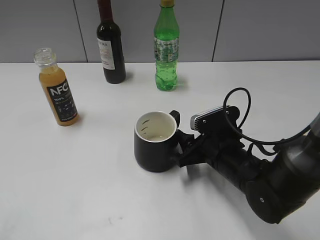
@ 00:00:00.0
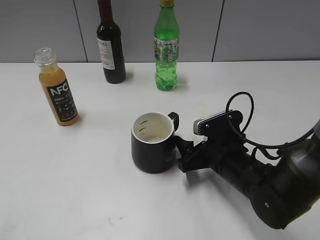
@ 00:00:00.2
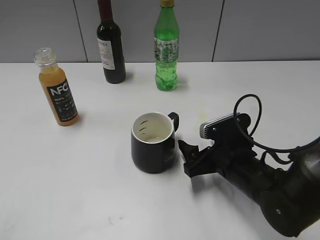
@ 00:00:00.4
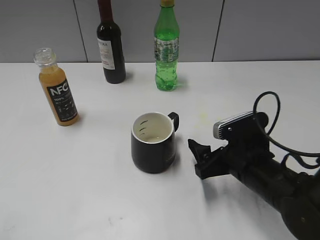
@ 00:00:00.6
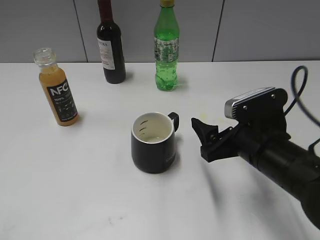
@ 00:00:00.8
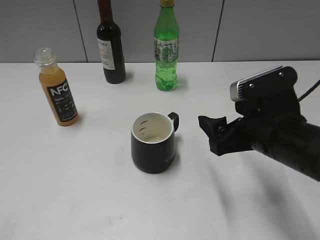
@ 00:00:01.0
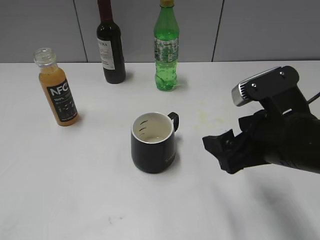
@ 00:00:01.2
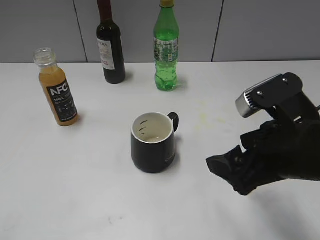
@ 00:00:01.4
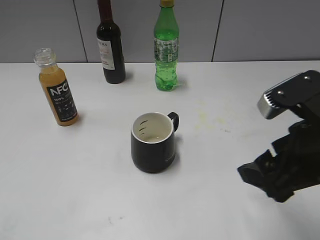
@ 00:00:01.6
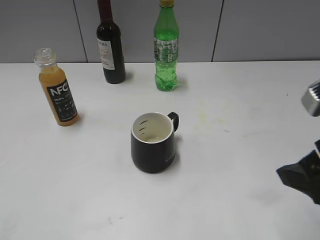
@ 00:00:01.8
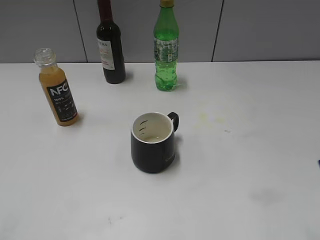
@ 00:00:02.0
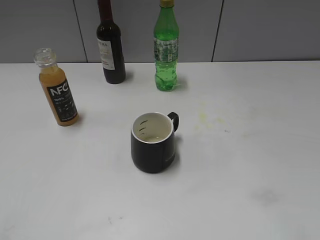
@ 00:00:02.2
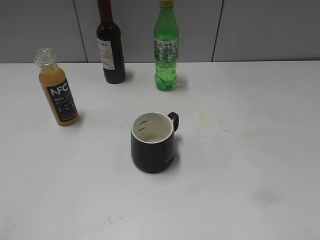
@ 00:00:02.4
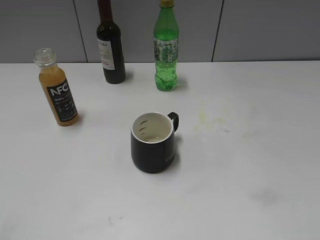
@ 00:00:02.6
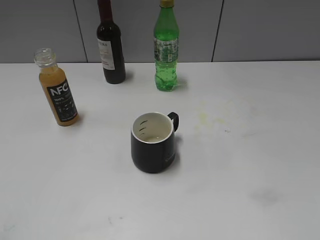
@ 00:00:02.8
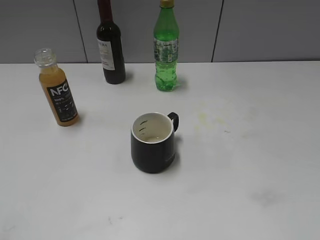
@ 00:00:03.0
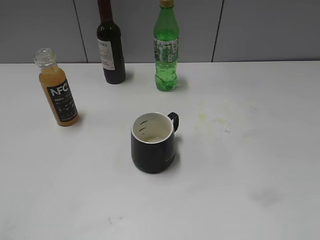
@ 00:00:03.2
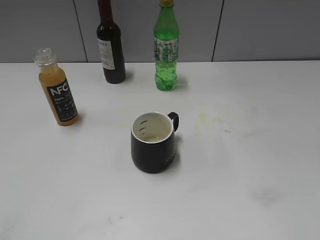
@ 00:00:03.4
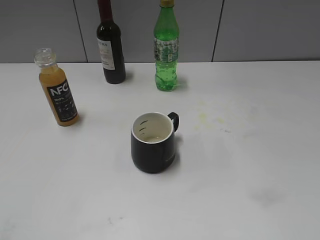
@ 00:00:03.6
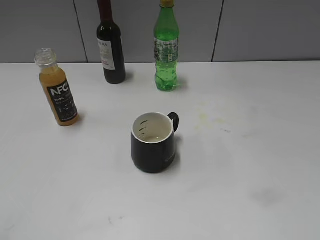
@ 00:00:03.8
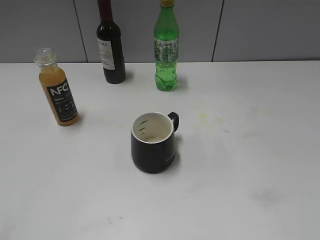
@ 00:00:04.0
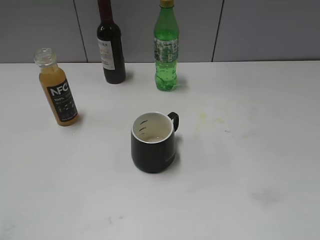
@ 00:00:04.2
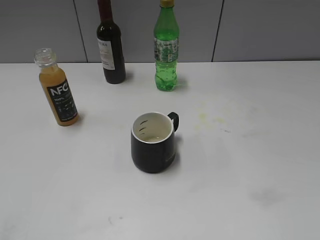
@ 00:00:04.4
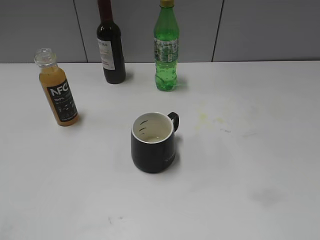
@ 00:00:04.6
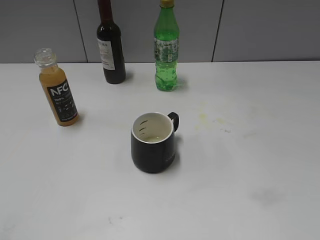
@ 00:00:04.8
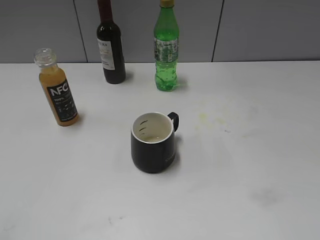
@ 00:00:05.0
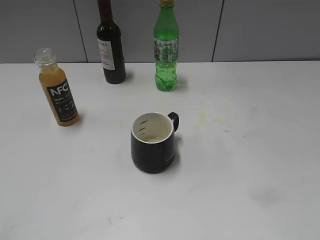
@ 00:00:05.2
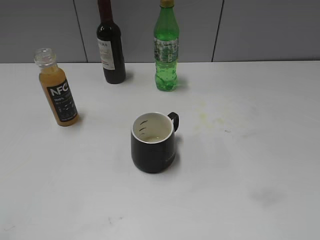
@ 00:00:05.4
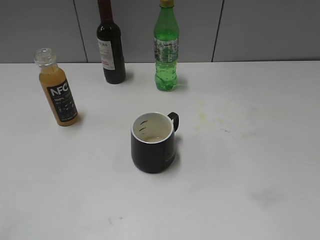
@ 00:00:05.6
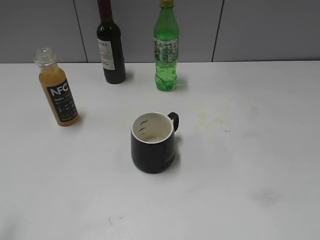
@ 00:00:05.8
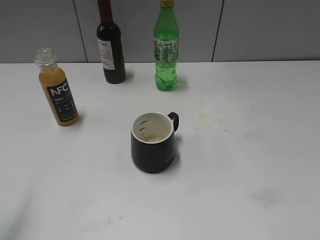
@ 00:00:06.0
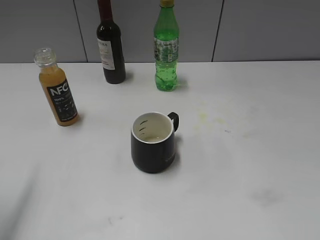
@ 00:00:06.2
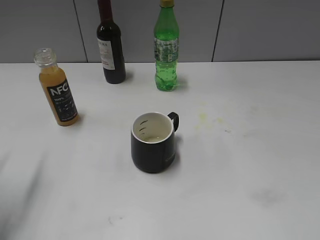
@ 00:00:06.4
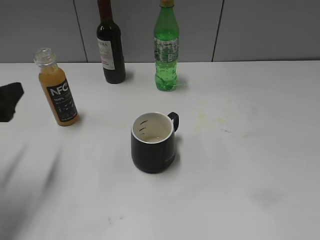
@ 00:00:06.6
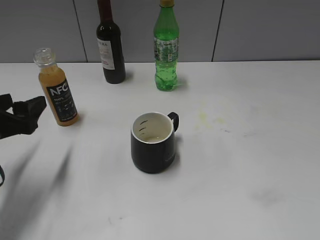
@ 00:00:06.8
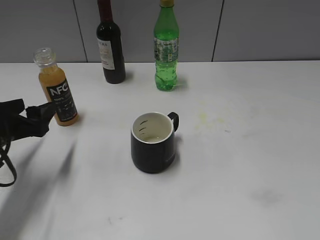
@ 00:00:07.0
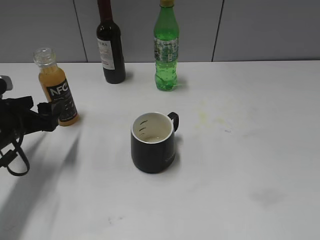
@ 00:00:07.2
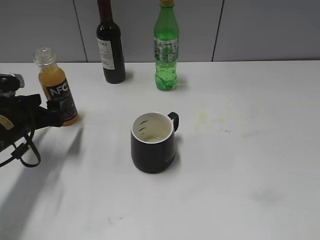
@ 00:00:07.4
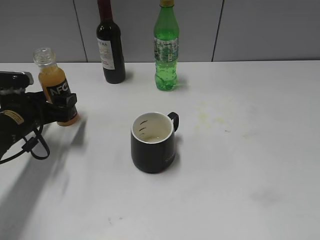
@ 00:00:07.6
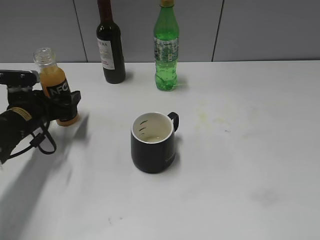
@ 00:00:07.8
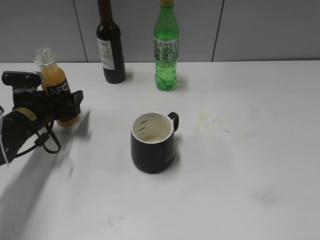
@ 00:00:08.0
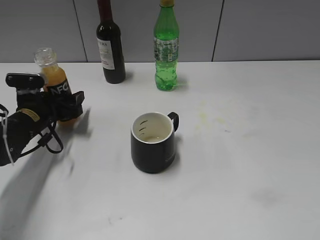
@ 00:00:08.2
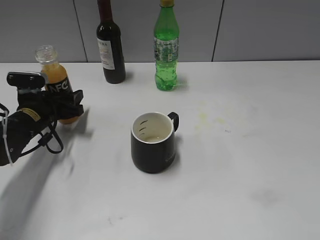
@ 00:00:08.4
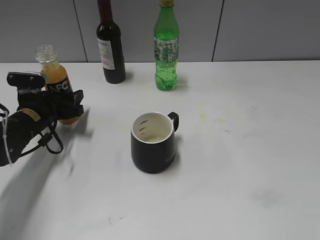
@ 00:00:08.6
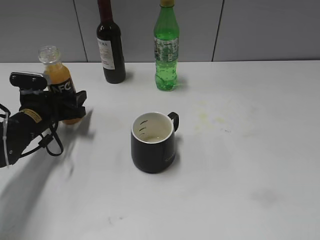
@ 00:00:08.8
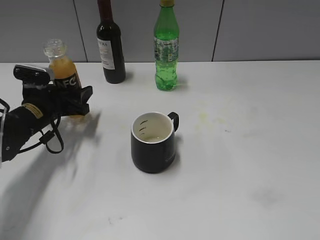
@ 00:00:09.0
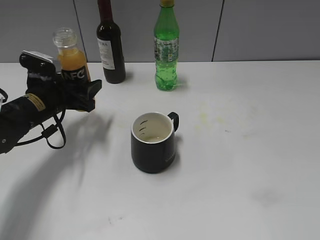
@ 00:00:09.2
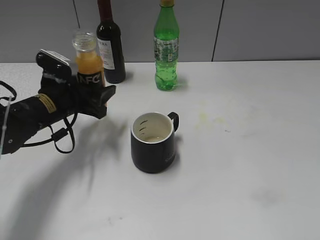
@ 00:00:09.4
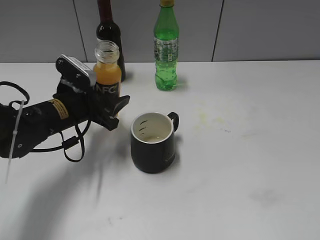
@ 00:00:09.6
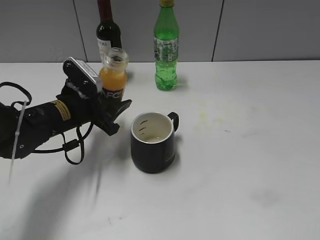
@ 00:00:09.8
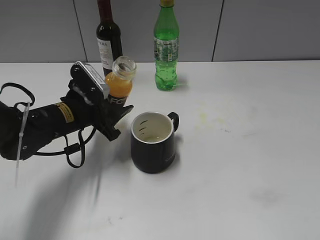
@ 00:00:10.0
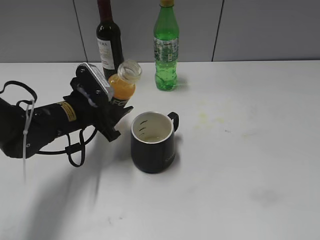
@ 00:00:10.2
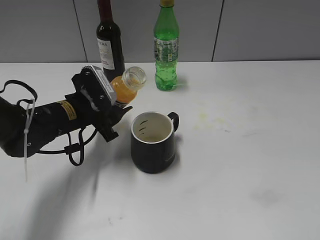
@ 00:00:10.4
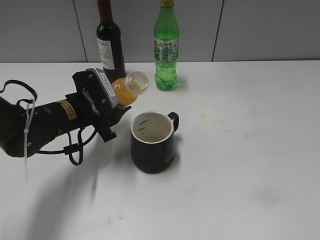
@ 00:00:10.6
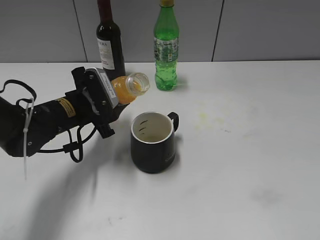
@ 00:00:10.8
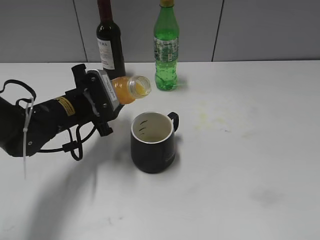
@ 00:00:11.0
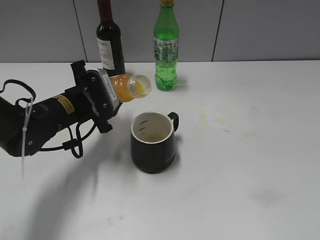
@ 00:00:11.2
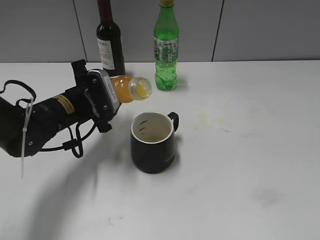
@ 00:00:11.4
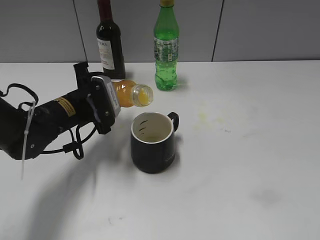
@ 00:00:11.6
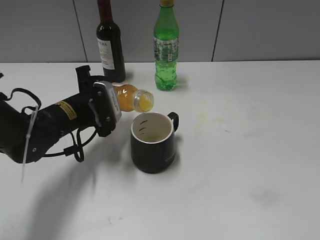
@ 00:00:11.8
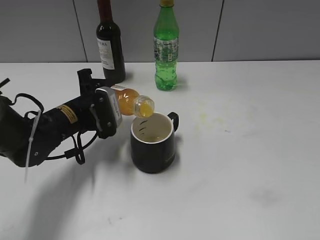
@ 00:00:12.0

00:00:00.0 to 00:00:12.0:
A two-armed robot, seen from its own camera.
Step, 00:00:00.0 to 00:00:08.8: Grasp the bottle with orange juice with left gripper.
00:00:00.0 to 00:00:01.6: The right gripper goes approximately 20 cm upward and backward, and opens up.
00:00:01.6 to 00:00:03.0: The right gripper moves backward and to the right, roughly 20 cm.
00:00:03.0 to 00:00:04.4: Neither gripper changes place.
00:00:06.0 to 00:00:07.6: The left gripper shifts roughly 30 cm forward and downward.
00:00:07.6 to 00:00:09.0: The left gripper closes its fingers.
00:00:09.0 to 00:00:10.4: The left gripper shifts some 10 cm to the right.

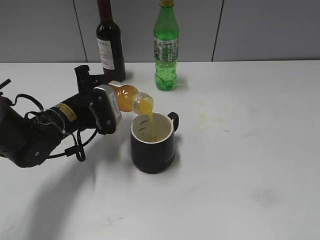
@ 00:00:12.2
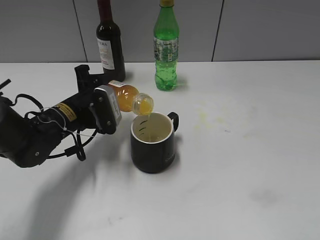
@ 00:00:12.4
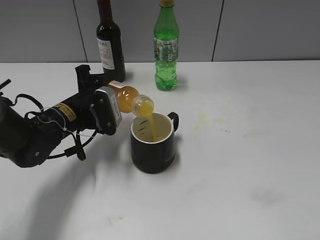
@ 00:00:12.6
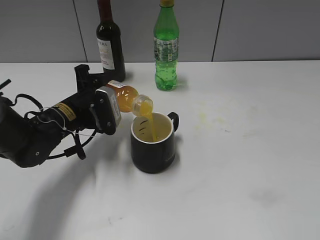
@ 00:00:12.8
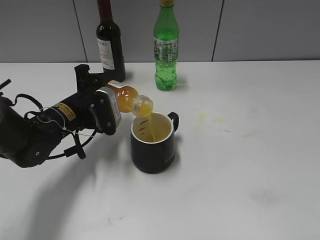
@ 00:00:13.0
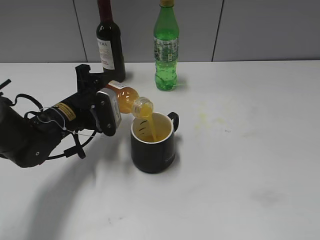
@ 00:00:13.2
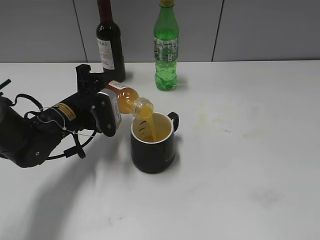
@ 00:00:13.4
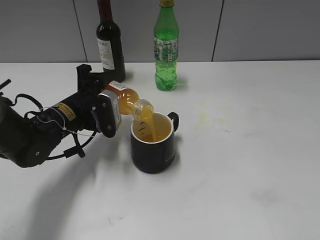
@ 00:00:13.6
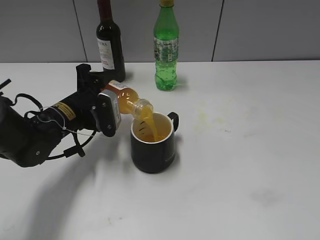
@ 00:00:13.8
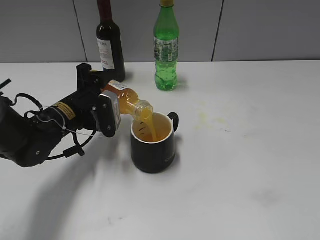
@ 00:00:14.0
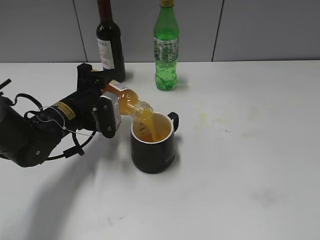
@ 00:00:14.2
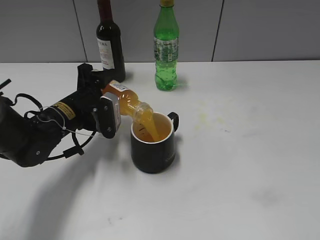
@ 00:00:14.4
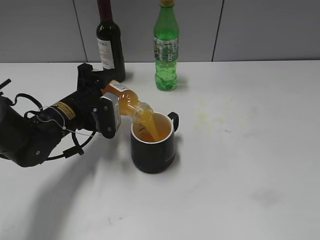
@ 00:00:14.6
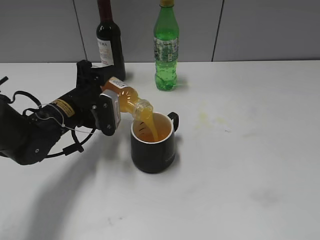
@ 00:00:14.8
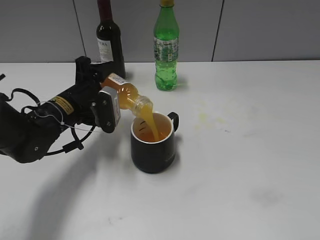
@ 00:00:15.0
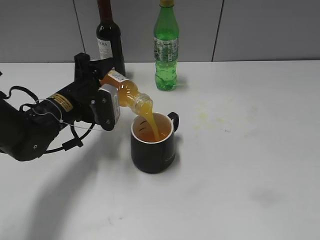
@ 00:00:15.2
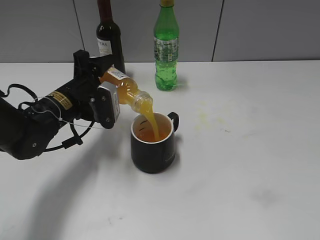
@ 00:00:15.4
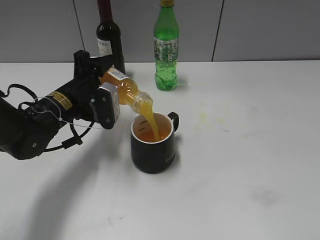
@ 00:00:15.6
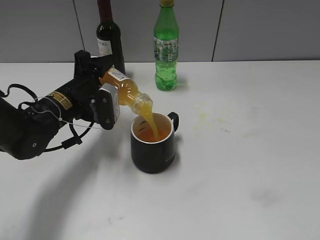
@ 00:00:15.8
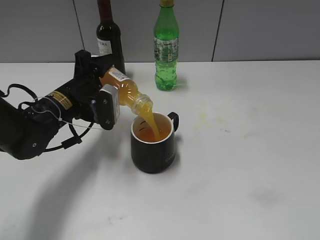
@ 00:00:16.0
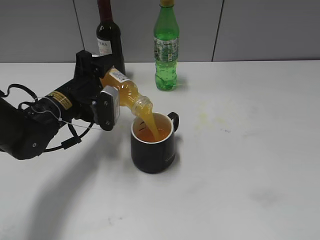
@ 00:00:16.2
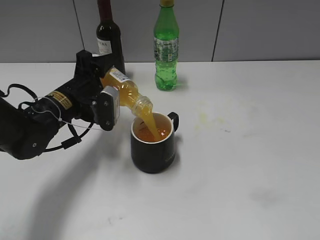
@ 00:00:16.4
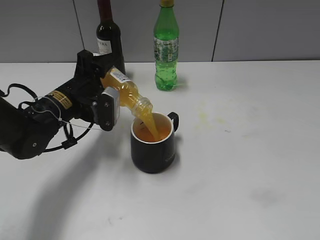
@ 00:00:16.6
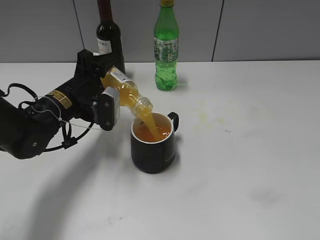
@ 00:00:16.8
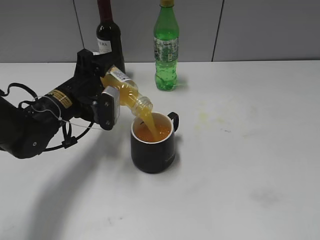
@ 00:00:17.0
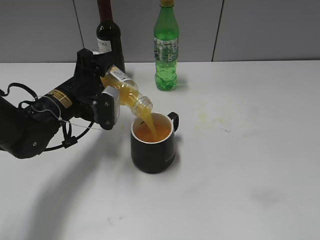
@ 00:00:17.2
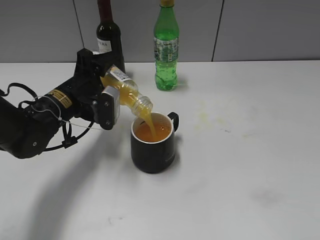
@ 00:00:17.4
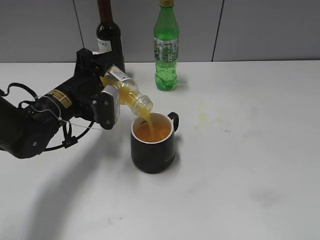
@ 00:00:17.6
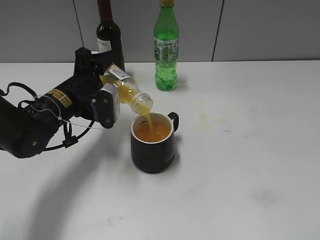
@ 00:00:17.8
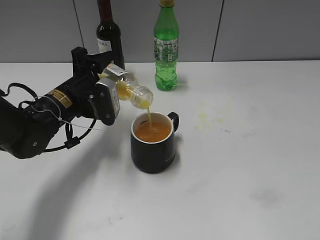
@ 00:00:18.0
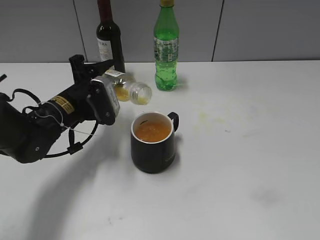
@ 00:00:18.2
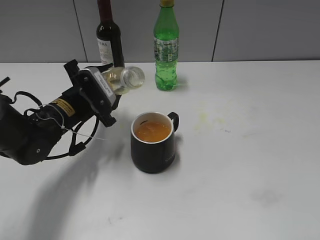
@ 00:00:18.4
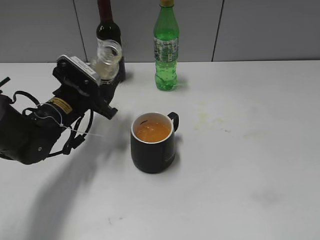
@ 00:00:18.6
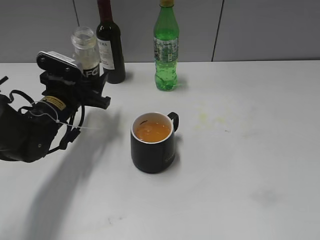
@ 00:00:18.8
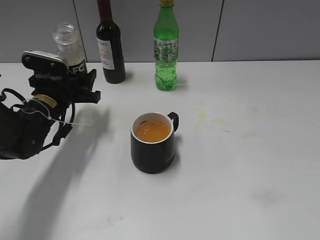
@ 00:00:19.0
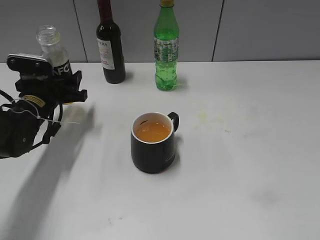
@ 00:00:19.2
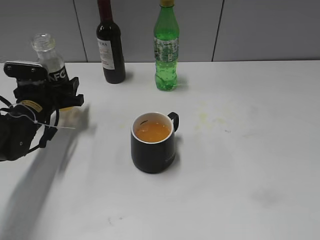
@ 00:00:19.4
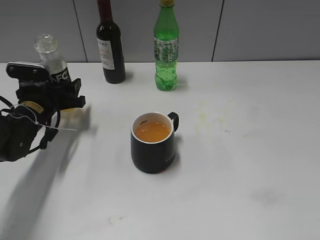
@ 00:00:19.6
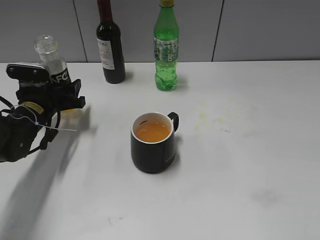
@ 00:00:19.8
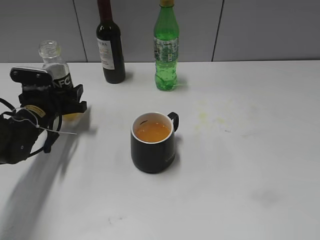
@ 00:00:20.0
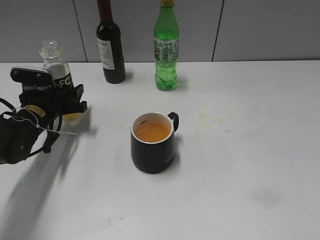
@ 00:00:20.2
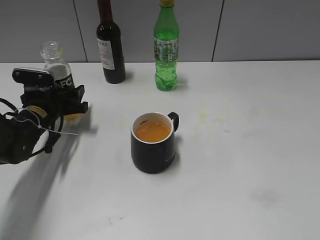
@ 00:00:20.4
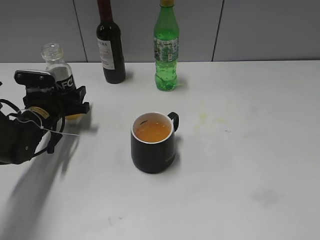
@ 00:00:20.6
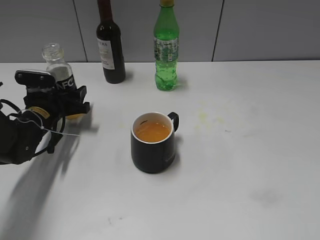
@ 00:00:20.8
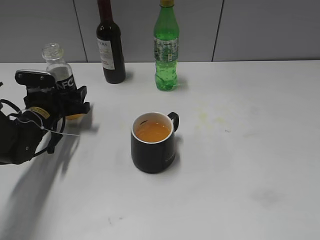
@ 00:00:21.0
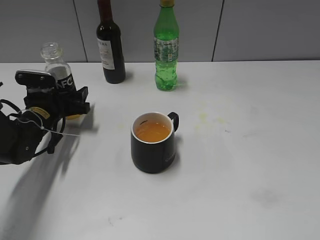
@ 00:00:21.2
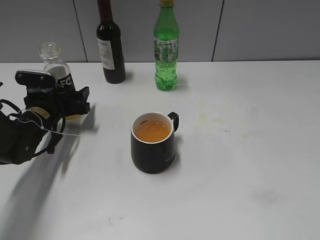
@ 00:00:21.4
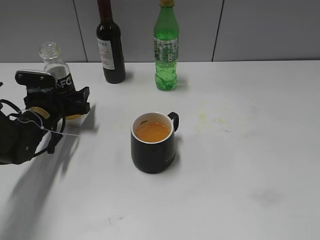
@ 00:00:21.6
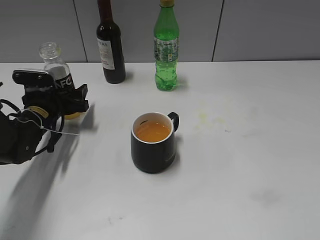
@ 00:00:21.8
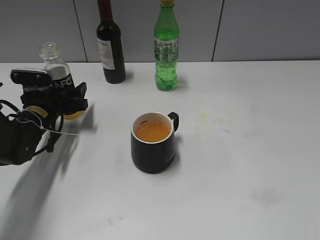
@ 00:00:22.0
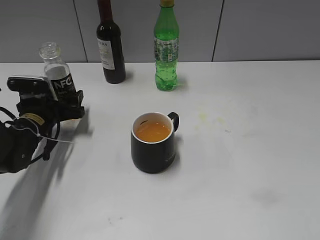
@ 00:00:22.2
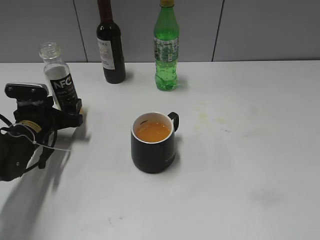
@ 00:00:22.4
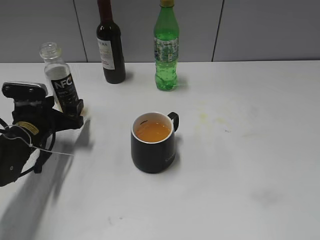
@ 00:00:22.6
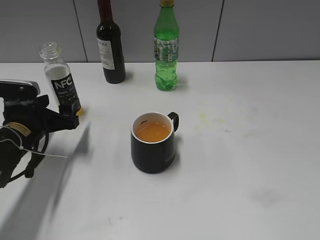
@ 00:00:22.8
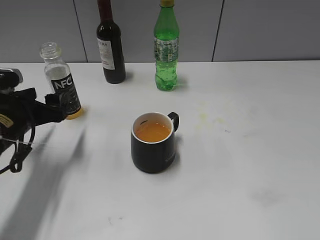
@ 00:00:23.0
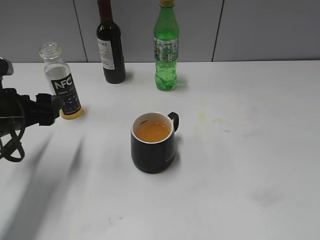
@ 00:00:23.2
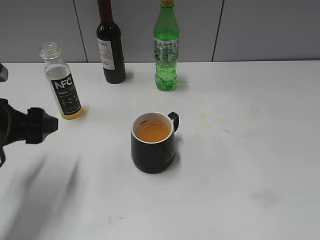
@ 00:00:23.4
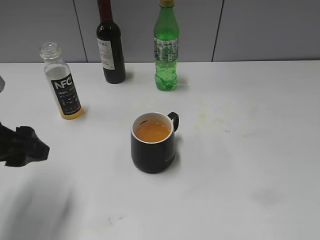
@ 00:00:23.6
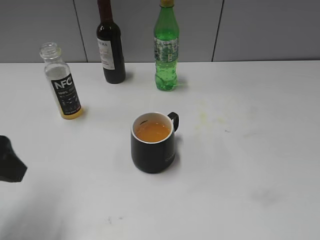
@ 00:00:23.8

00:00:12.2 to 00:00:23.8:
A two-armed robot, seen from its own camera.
Step, 00:00:12.2 to 00:00:18.2: Pour the orange juice from bottle to cup with left gripper.
Step, 00:00:18.4 to 00:00:21.2: Place the orange juice bottle on the table with left gripper.
00:00:12.2 to 00:00:15.0: The grippers stay close to where they were, moving slightly.
00:00:15.0 to 00:00:18.0: The grippers stay close to where they were, moving slightly.
00:00:18.0 to 00:00:19.4: The left gripper travels to the left by roughly 10 cm.
00:00:19.4 to 00:00:22.4: The grippers stay close to where they were, moving slightly.
00:00:22.4 to 00:00:23.8: The left gripper shifts about 25 cm upward and backward.
